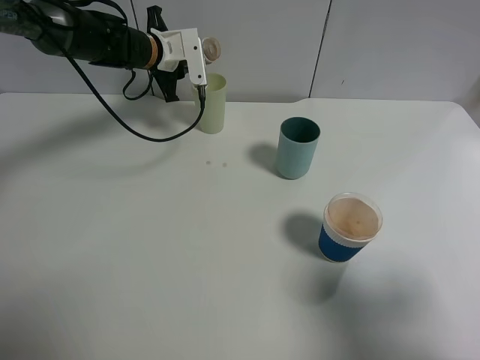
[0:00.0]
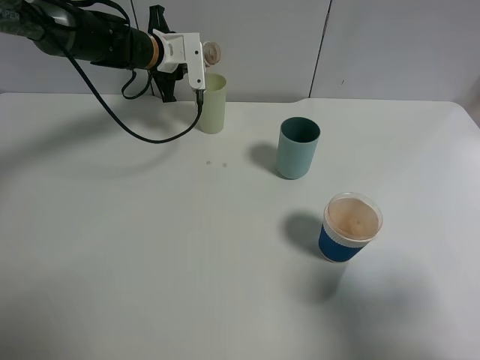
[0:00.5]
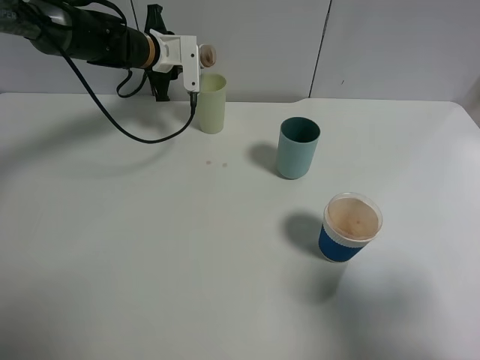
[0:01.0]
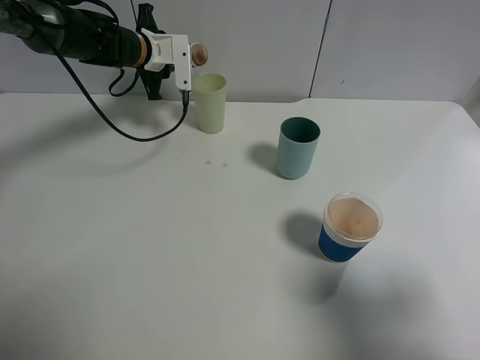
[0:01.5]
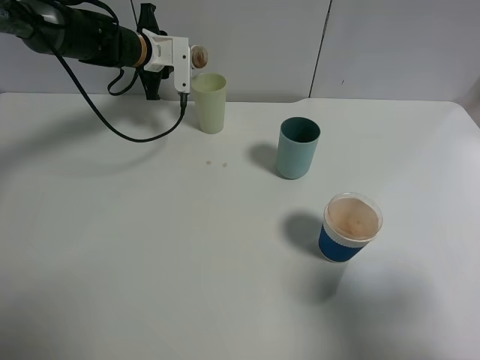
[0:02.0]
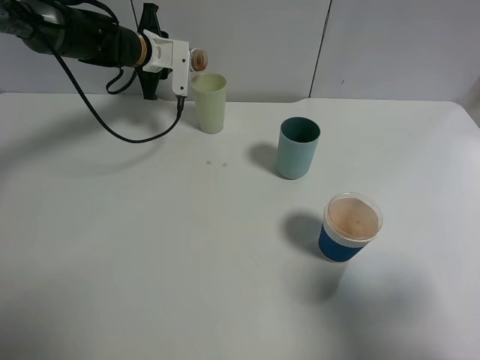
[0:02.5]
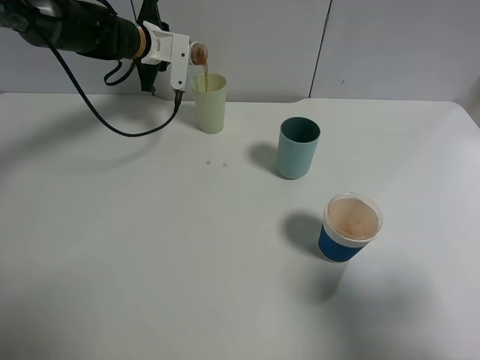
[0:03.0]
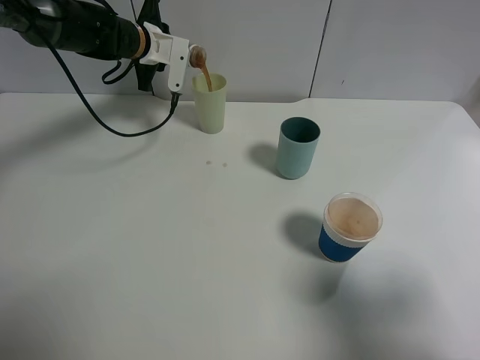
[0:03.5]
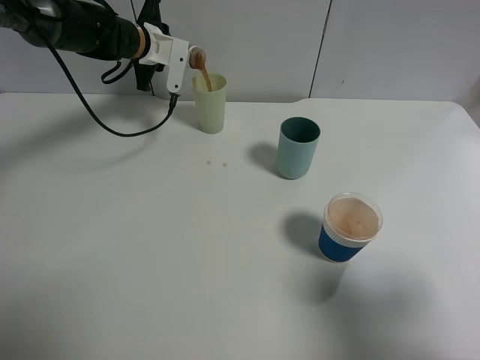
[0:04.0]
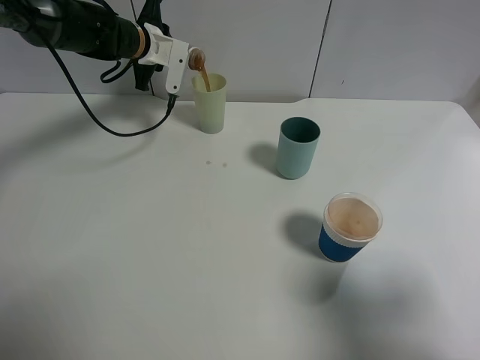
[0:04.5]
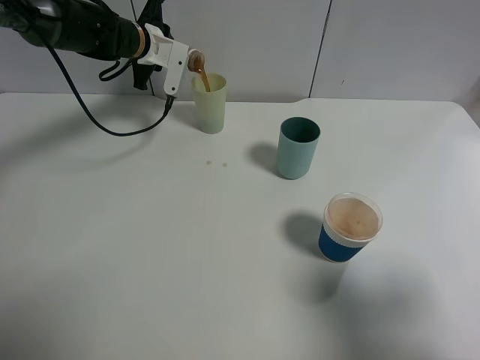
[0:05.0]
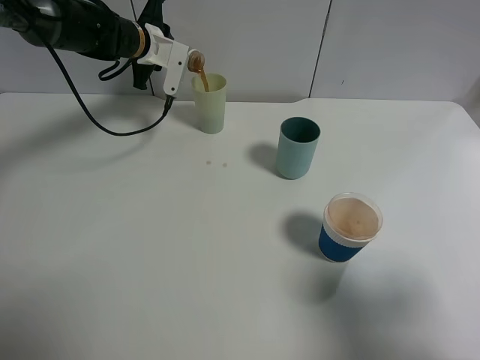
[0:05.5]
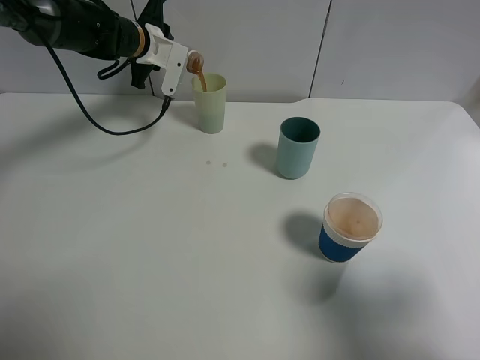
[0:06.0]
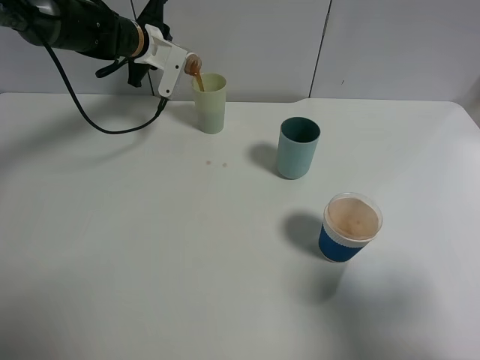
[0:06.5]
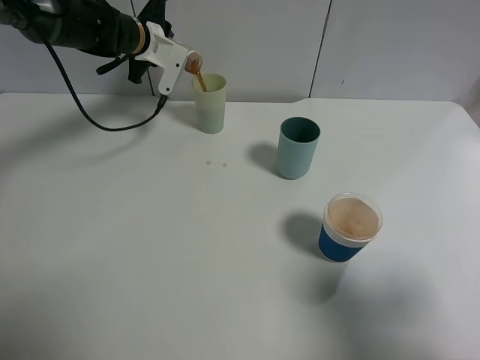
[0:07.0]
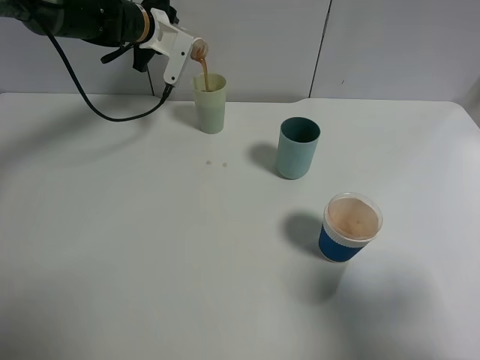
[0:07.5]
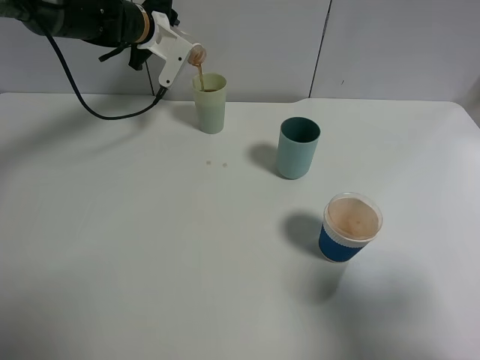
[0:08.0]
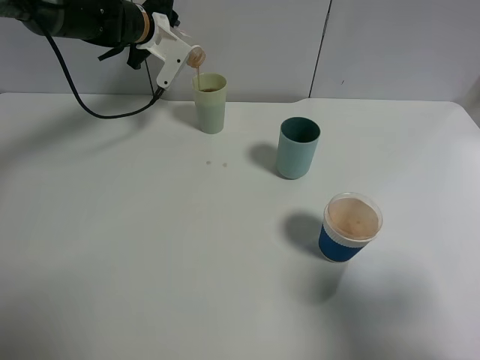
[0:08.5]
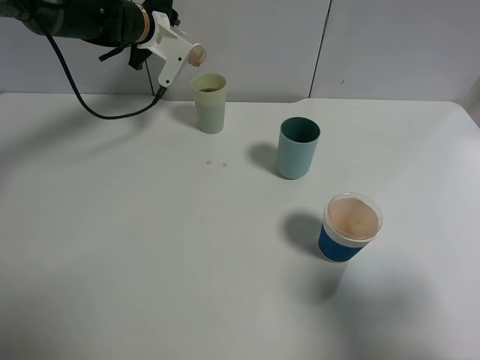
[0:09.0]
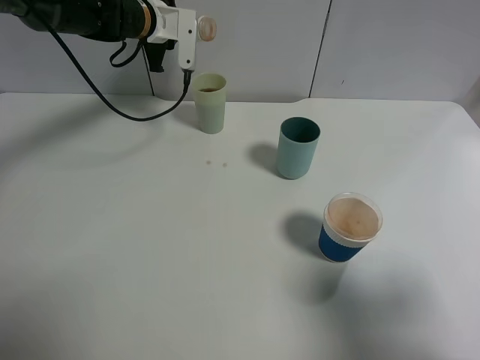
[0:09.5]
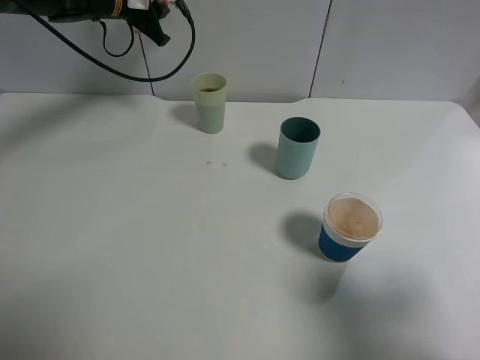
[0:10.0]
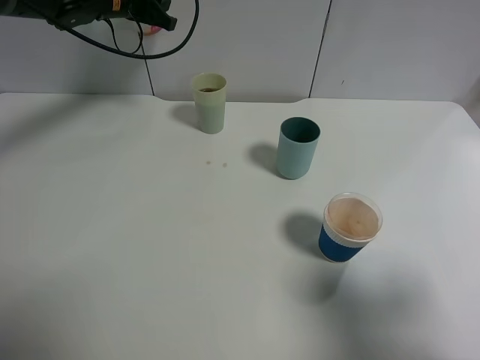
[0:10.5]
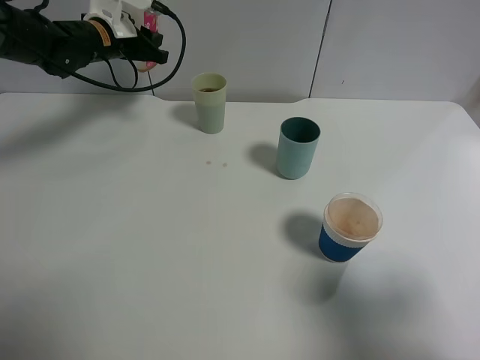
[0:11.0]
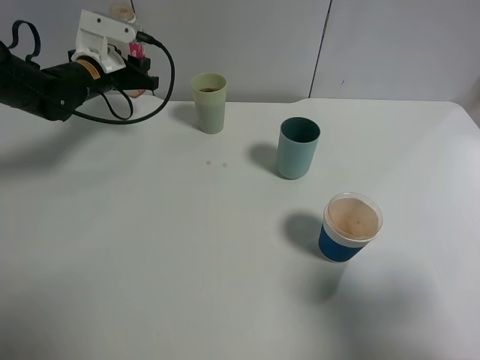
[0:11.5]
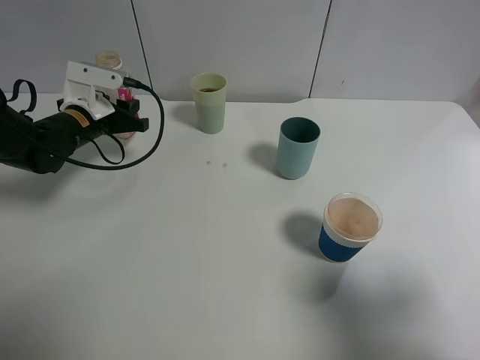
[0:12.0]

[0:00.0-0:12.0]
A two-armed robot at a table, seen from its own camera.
Task of the whole recording: use a gripper to hold the bottle of the drink and pour it into a random cup.
Step, 0:00.0 to 0:09.5: Pour the cranberry juice into the White Plastic Cup with the left gripper.
0:00.0 to 0:02.0: The grippers move only a little.
0:02.0 to 0:04.0: The grippers stay close to where they were, moving slightly.
0:04.0 to 0:06.0: The grippers move only a little.
0:06.0 to 0:08.0: The grippers make only small movements.
0:08.0 to 0:10.0: The left gripper moves about 5 cm.
0:10.0 to 0:12.0: The left gripper shifts some 20 cm downward and backward.

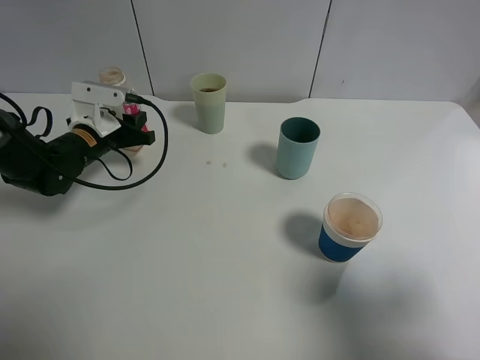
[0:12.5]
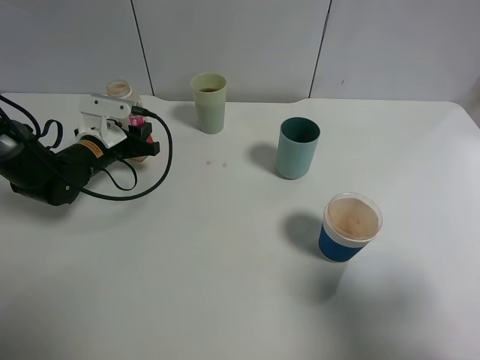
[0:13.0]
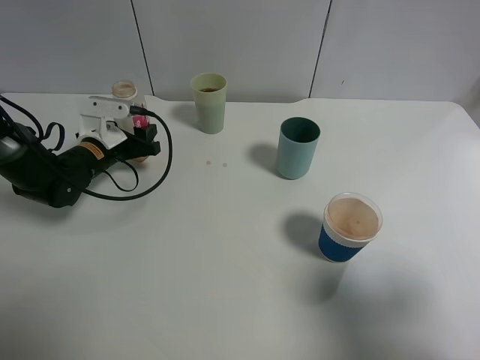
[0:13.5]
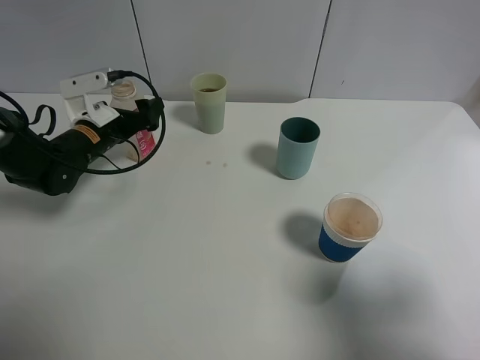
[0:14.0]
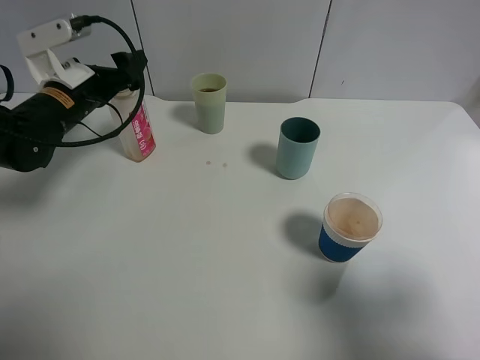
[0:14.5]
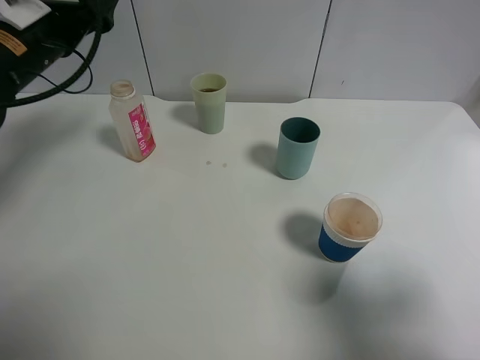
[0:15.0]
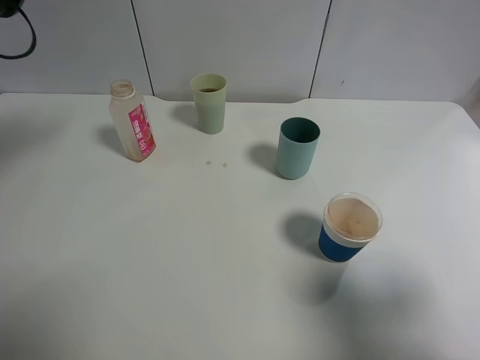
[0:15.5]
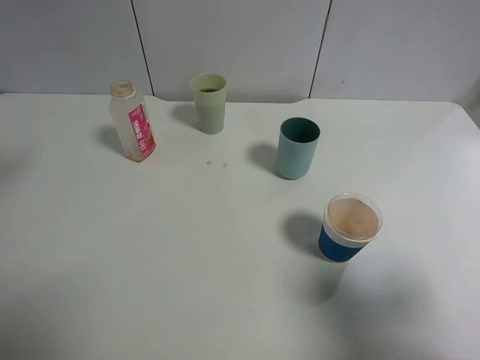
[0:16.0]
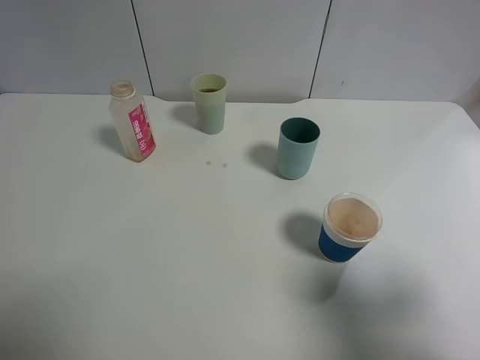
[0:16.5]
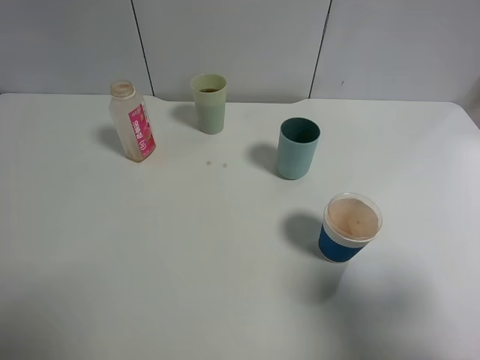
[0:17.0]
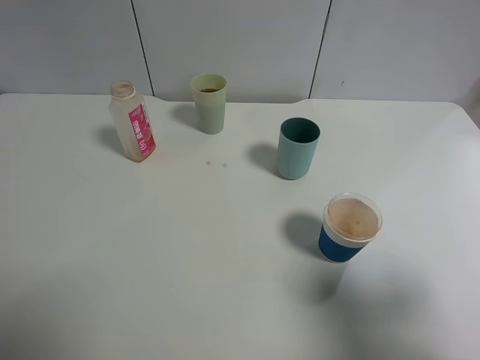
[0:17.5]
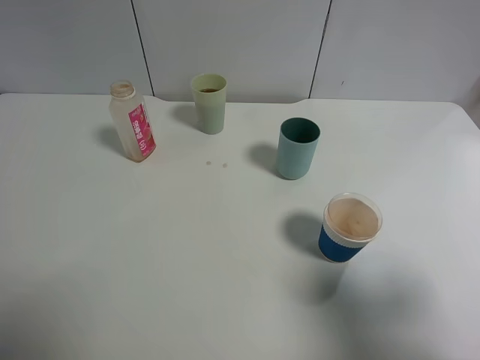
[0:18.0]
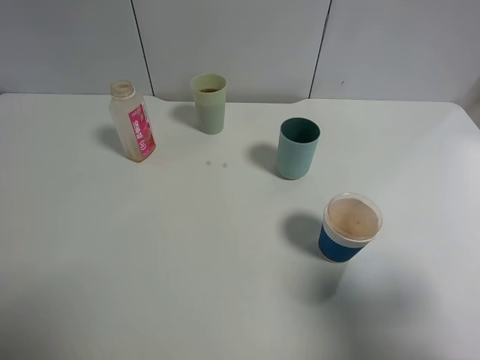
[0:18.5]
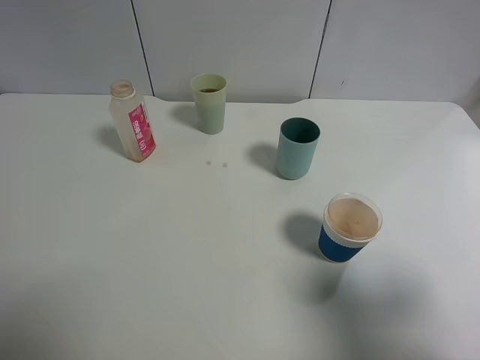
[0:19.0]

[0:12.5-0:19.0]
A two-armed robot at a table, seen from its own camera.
Task of the whole recording: use a gripper to hold the bottle of the drink and pour it into a random cup.
0:12.5 to 0:14.5: The left gripper is displaced upward by roughly 10 cm, and opens up.
0:14.5 to 0:17.0: The left gripper travels backward and upward by about 35 cm.
